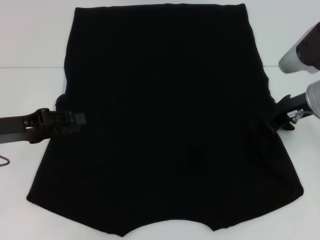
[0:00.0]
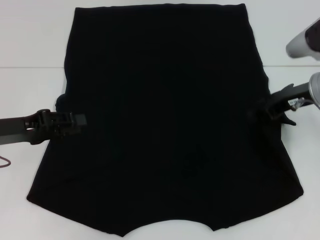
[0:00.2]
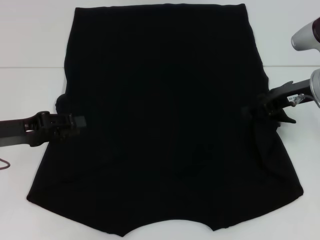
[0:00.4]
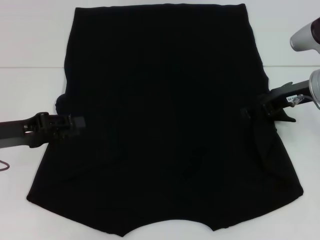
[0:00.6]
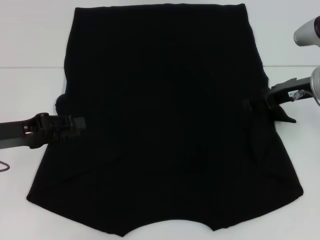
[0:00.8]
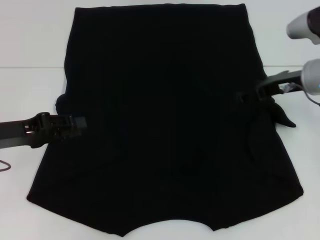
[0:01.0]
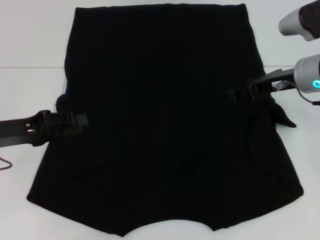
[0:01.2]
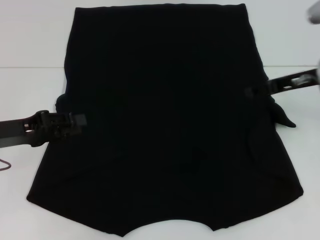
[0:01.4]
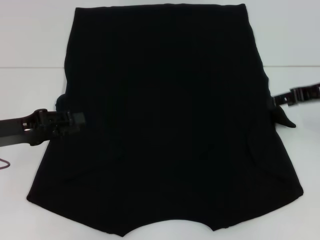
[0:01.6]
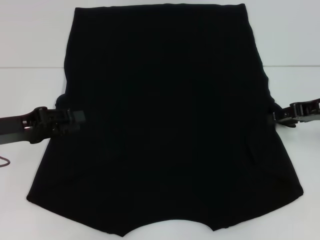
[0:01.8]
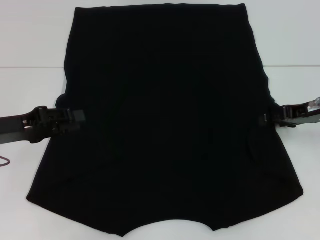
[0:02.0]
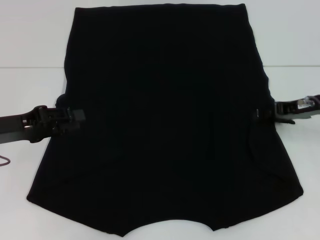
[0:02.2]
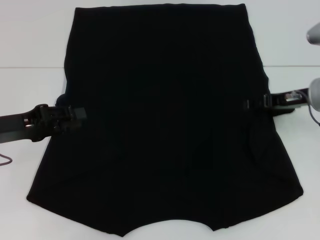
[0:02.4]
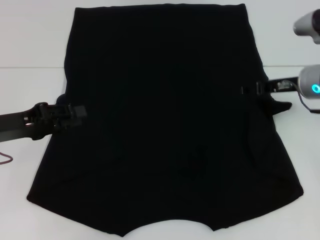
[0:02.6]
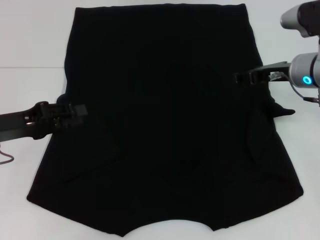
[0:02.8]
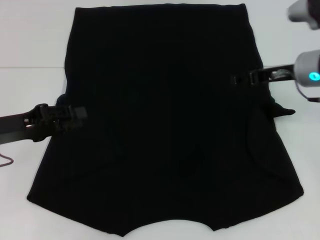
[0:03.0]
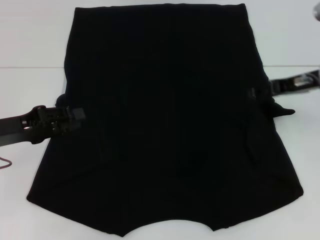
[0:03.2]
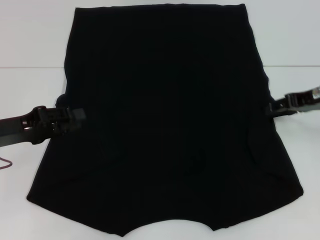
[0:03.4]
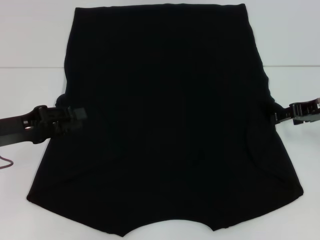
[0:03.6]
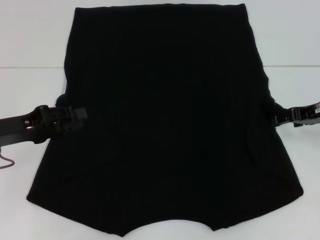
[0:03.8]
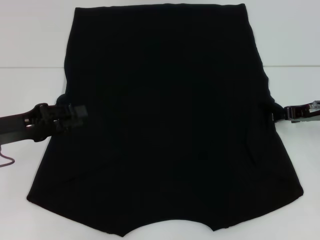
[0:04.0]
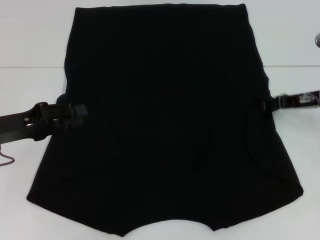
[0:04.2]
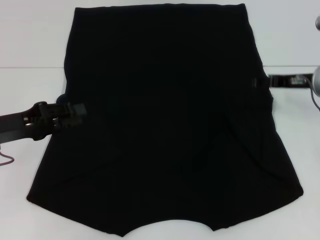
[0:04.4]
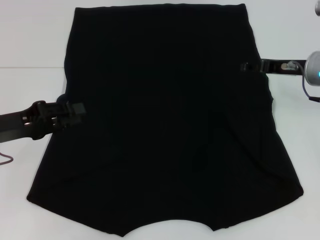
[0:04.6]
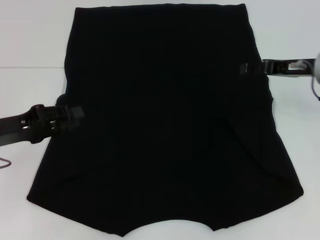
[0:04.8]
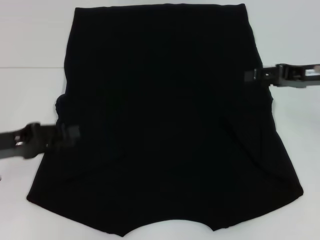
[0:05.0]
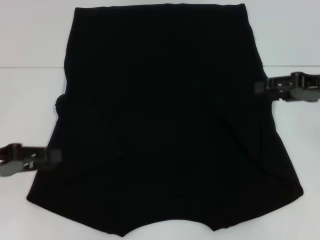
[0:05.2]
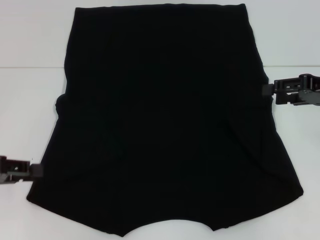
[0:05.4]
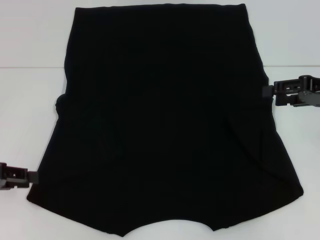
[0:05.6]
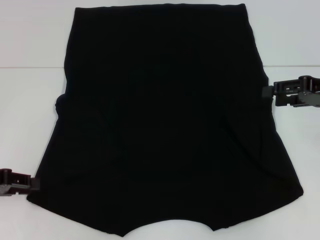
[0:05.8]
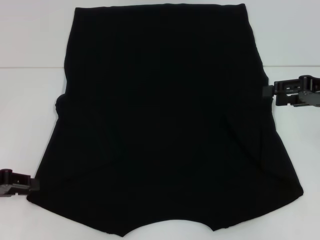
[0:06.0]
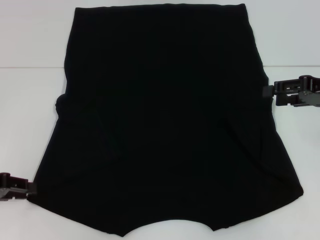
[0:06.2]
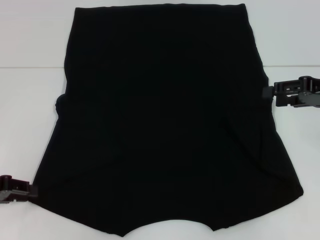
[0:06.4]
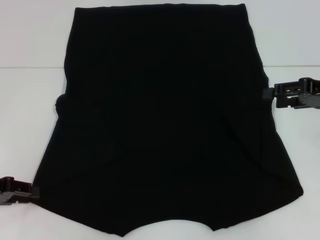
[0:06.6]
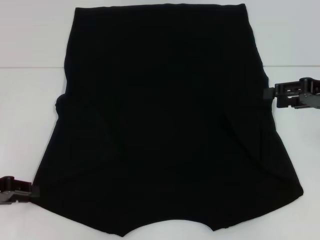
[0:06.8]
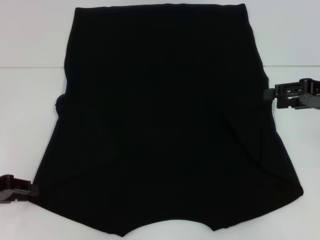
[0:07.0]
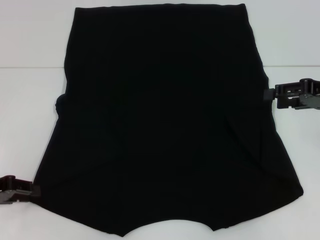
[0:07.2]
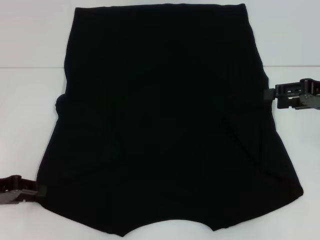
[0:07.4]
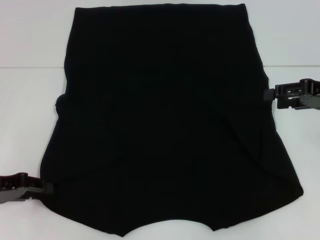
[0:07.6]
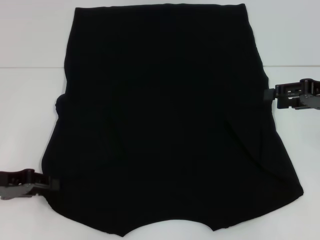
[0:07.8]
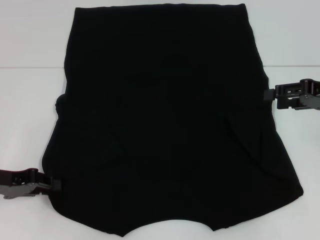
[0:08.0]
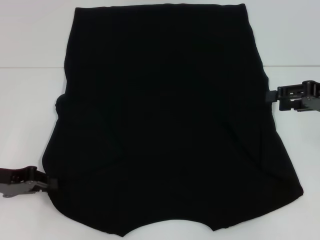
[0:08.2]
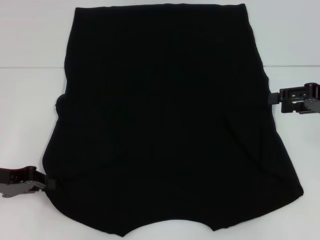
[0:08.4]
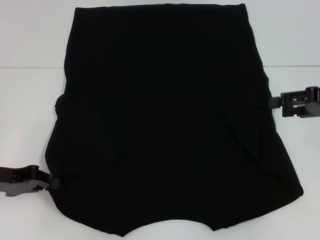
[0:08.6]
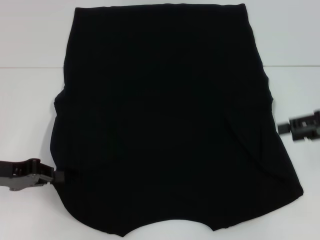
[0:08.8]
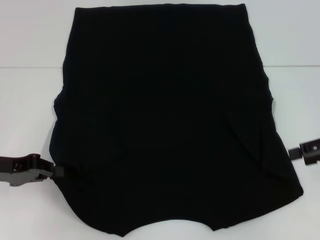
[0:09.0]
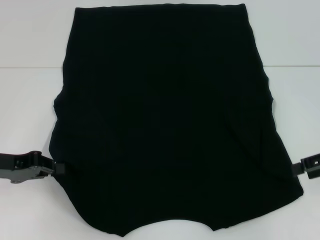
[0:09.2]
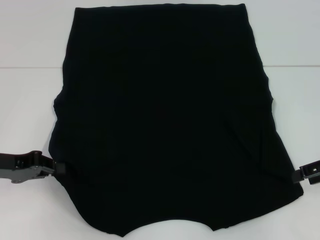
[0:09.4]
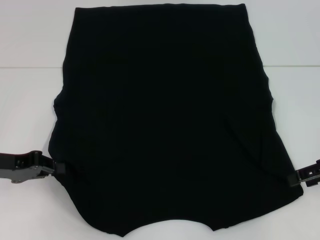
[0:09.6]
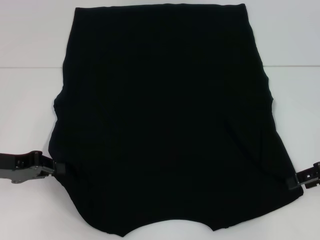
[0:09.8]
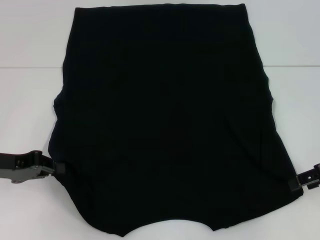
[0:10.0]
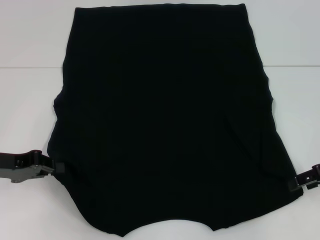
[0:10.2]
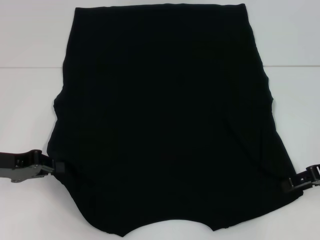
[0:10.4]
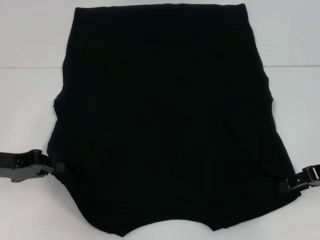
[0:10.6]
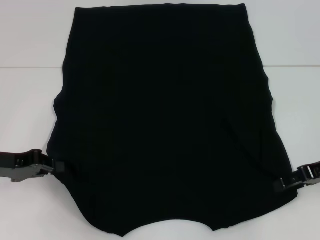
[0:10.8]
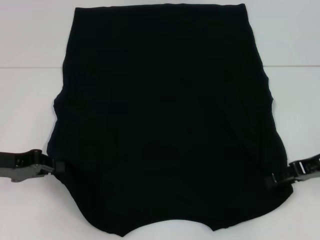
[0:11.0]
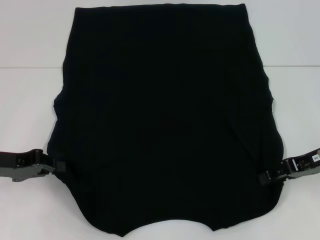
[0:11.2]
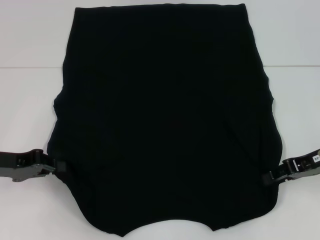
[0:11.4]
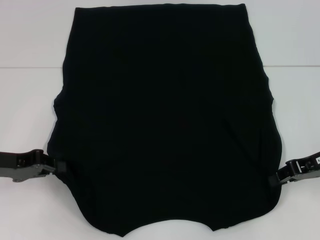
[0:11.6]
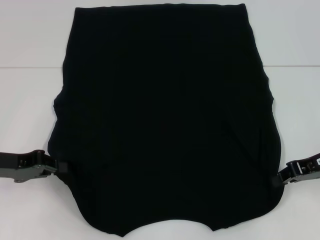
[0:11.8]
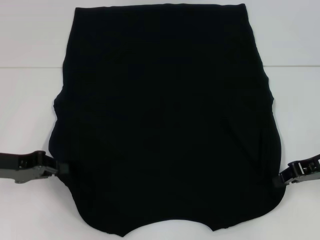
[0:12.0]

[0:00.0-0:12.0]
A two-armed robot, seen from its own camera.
Step, 0:00.0 to 0:04.2: Fold the bottom right sleeve with your right hand.
Step, 0:04.4 to 0:08.6: Grab the bottom left corner with your left hand.
Step, 0:08.8 to 0:11.8: Grab the bottom right corner with your right hand.
0:00.0 to 0:01.6: The right gripper ends up about 5 cm from where it was, and opens up.
0:01.6 to 0:03.0: The right gripper heads to the left, covering approximately 5 cm.
0:04.4 to 0:06.0: The right gripper travels to the right by approximately 5 cm, while the left gripper travels to the left by some 5 cm.
0:06.0 to 0:07.6: The grippers make only small movements.
0:07.6 to 0:09.0: The left gripper closes.
0:09.0 to 0:10.4: The grippers make only small movements.
0:10.4 to 0:12.0: The right gripper closes its fingers.

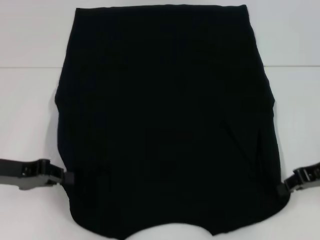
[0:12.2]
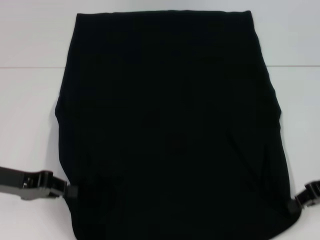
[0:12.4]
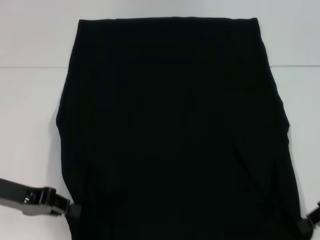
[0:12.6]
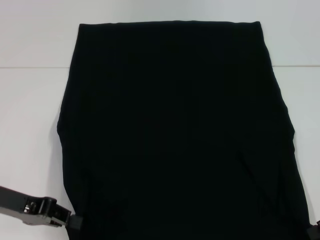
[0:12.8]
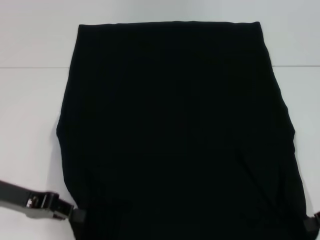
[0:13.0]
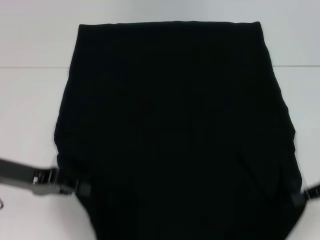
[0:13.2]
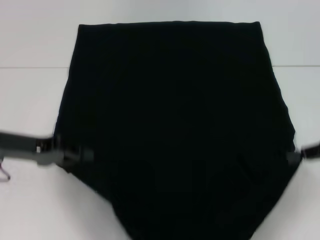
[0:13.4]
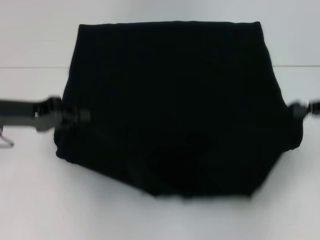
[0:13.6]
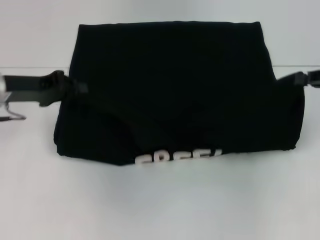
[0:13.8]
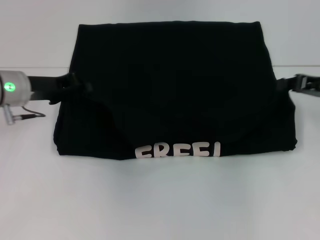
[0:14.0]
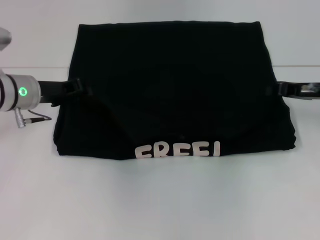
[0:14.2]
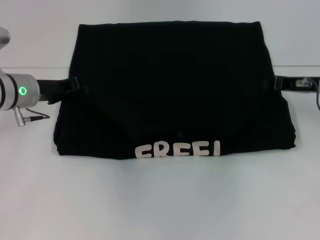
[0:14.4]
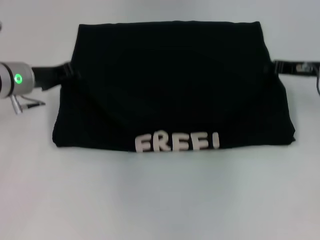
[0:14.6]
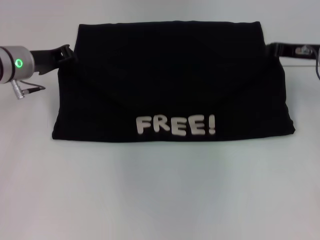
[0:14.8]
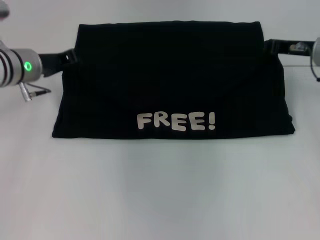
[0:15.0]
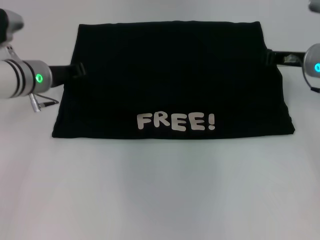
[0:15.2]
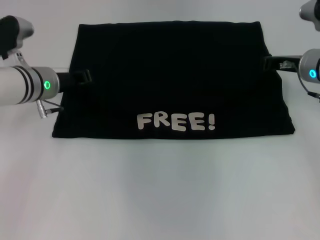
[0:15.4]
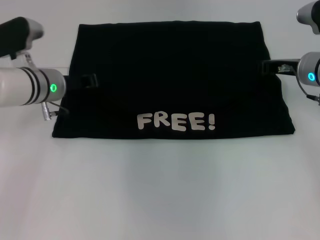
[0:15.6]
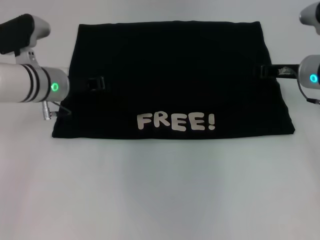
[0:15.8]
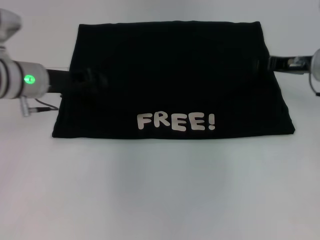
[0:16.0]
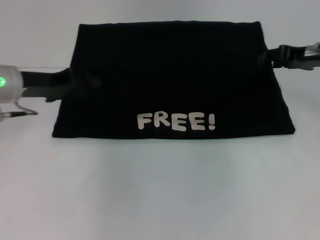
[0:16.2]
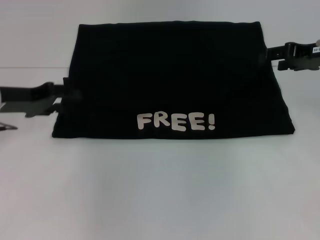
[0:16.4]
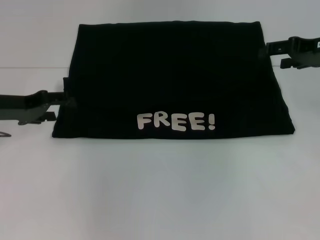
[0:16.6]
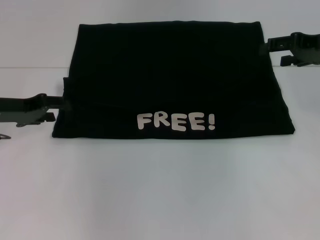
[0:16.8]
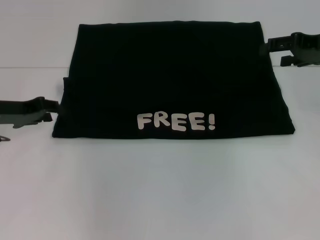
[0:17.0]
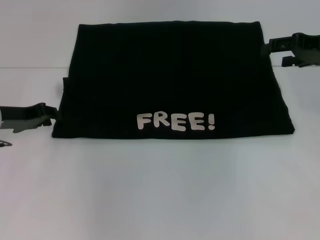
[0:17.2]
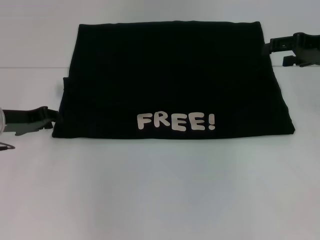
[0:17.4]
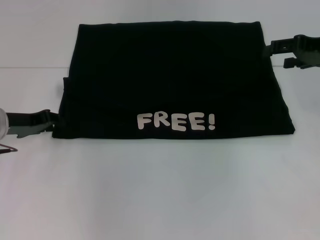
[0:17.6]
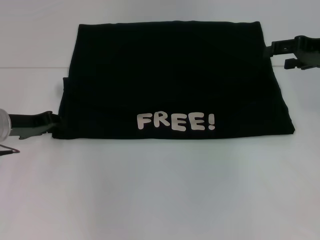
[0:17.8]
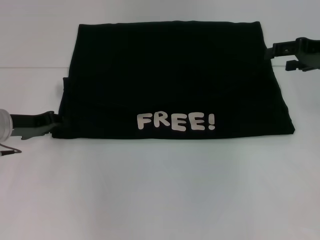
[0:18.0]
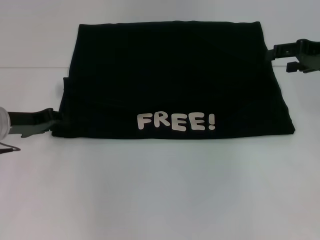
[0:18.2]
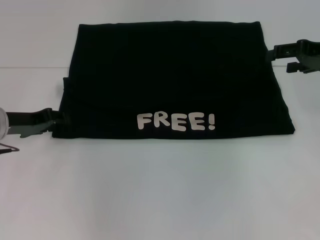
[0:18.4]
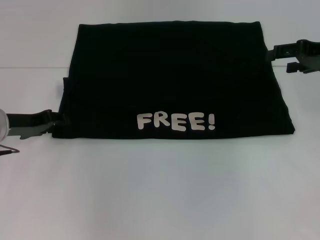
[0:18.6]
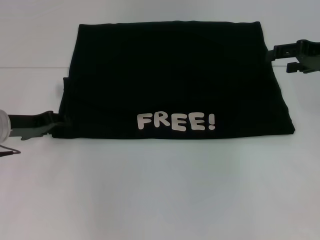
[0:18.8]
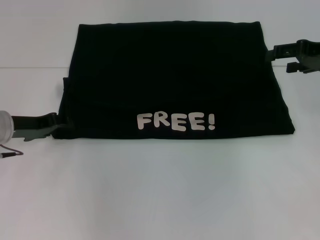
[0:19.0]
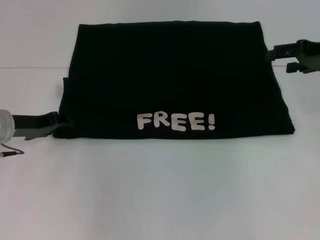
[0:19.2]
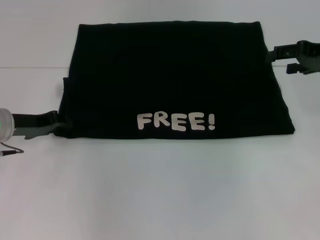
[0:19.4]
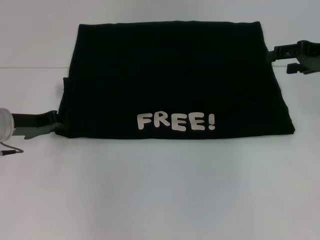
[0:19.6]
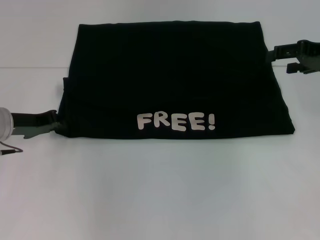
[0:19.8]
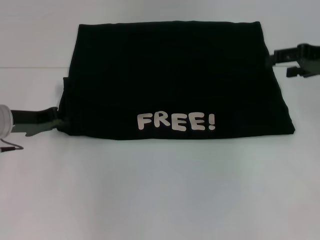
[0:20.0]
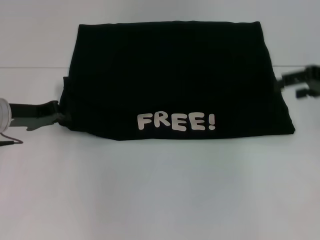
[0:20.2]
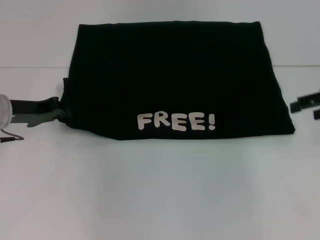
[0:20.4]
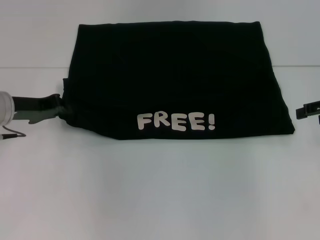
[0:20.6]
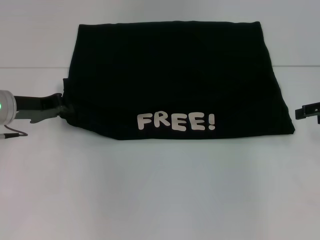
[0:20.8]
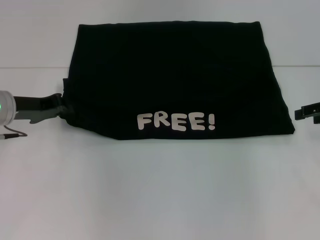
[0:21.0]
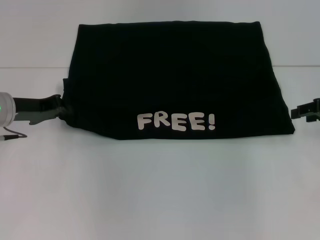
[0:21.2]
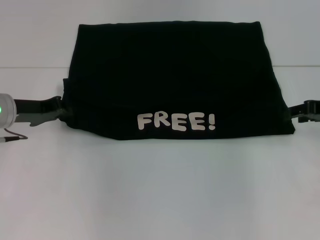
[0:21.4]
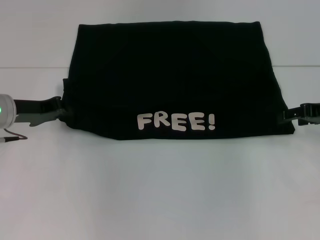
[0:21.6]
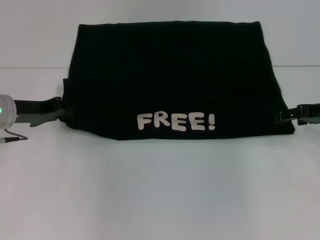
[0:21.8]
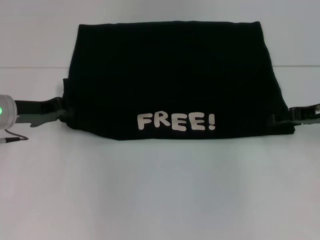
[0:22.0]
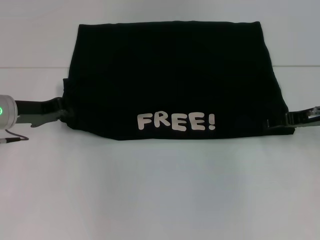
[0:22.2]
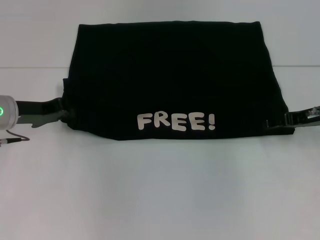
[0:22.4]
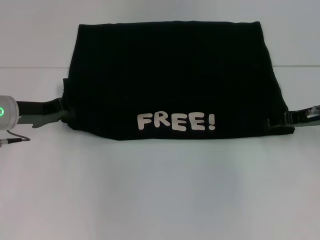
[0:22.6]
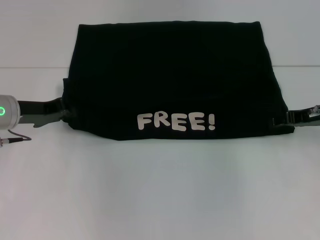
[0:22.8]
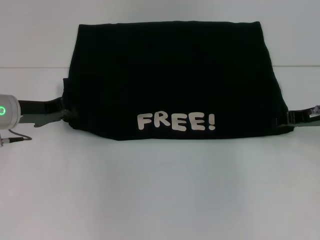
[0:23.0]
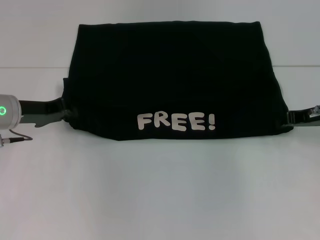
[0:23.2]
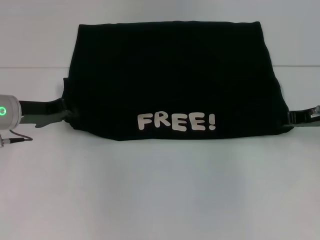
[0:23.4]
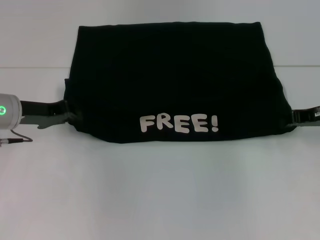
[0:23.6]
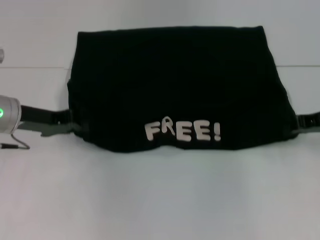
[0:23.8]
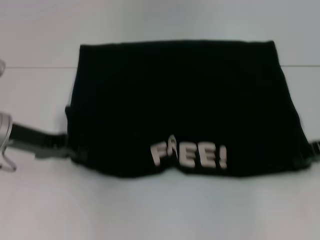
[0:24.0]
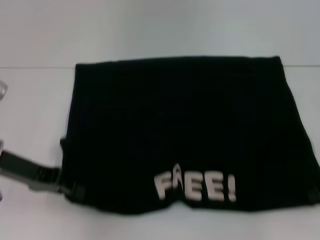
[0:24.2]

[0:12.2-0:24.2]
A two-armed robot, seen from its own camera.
Step, 0:12.2 to 0:16.0: Fold the clothes with your left hand.
Step, 0:12.2 to 0:16.0: Fold the clothes with your right hand.
0:12.2 to 0:13.8: The right gripper travels upward by roughly 5 cm, while the left gripper goes about 10 cm forward.
0:13.8 to 0:15.2: The right gripper travels to the left and forward by some 15 cm, while the left gripper moves to the right and forward, about 10 cm.
0:15.2 to 0:16.6: The right gripper travels upward by some 5 cm, and opens up. The left gripper moves to the left and backward, about 10 cm, and opens.
0:16.6 to 0:18.2: The left gripper closes.
0:18.2 to 0:19.8: The two grippers keep their place.
0:19.8 to 0:21.2: The right gripper is displaced downward by approximately 5 cm.
0:21.2 to 0:22.6: The right gripper goes some 5 cm to the left.
0:22.6 to 0:24.2: Both grippers move backward, roughly 5 cm. The right gripper closes its fingers.
